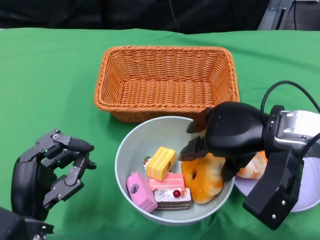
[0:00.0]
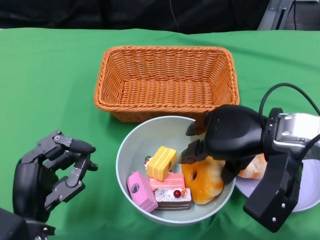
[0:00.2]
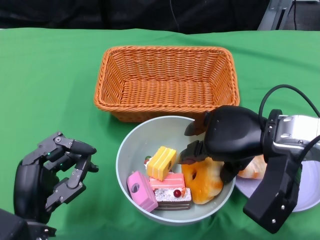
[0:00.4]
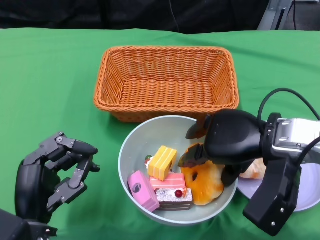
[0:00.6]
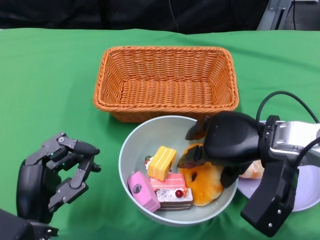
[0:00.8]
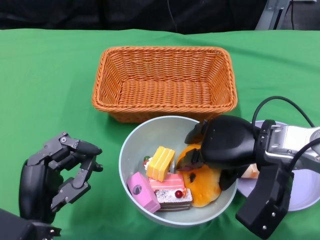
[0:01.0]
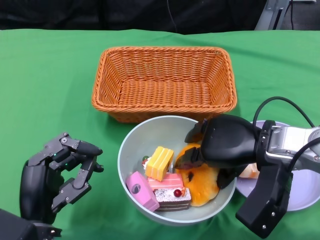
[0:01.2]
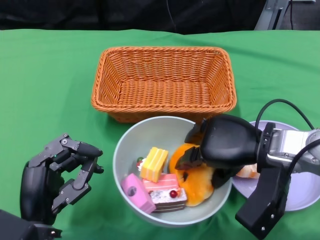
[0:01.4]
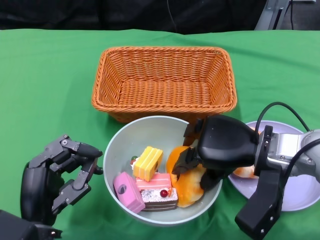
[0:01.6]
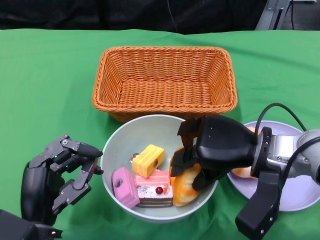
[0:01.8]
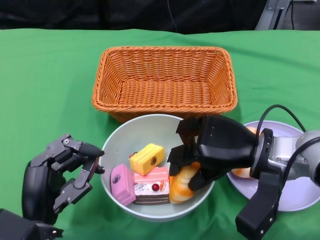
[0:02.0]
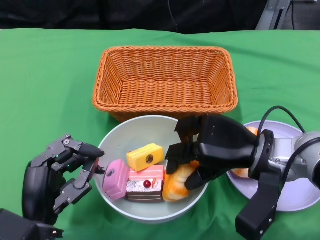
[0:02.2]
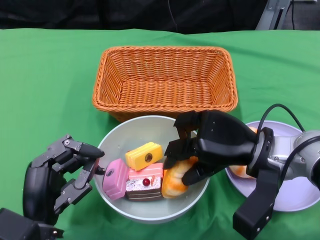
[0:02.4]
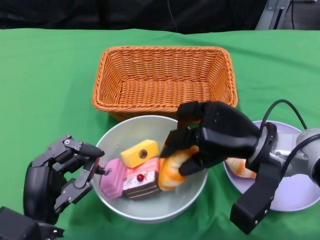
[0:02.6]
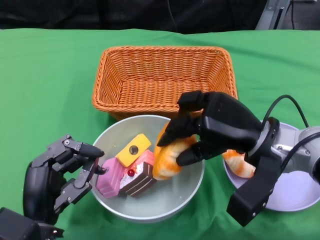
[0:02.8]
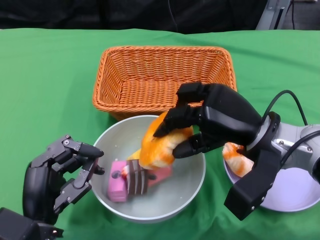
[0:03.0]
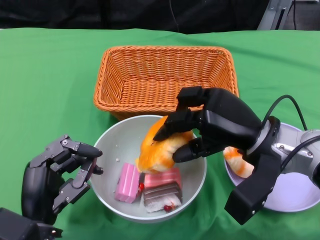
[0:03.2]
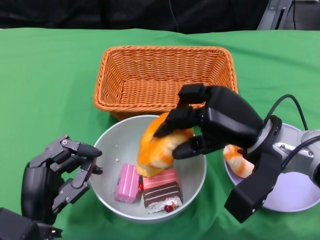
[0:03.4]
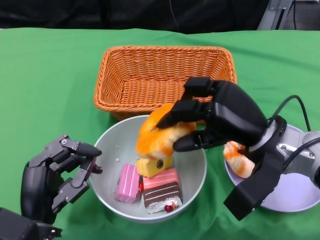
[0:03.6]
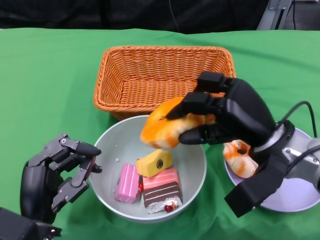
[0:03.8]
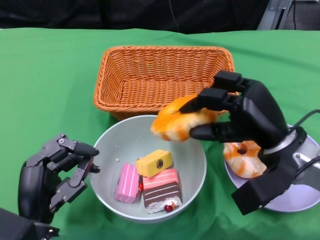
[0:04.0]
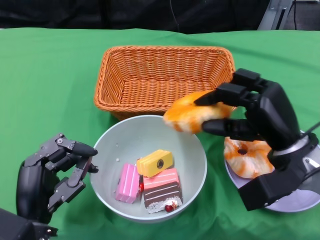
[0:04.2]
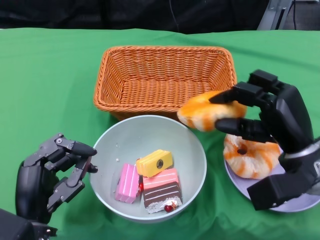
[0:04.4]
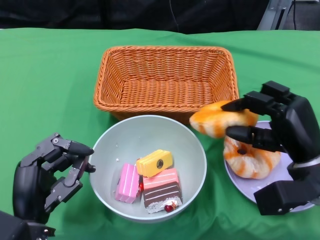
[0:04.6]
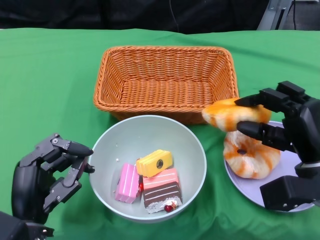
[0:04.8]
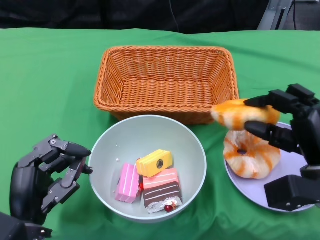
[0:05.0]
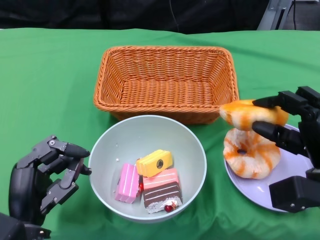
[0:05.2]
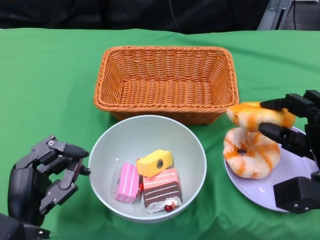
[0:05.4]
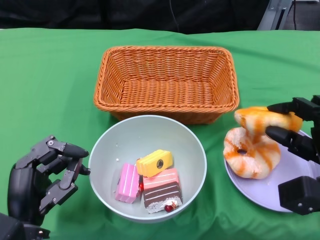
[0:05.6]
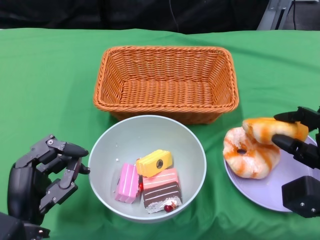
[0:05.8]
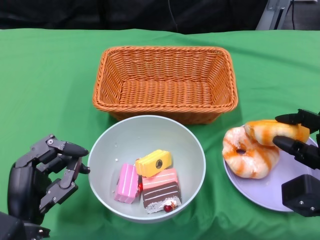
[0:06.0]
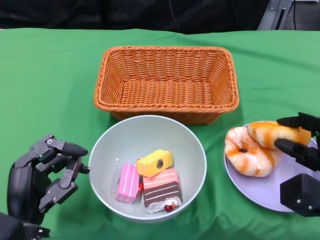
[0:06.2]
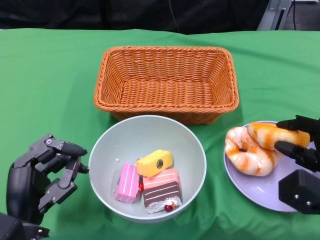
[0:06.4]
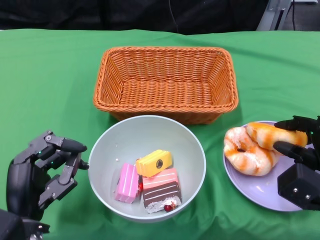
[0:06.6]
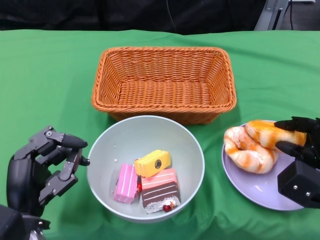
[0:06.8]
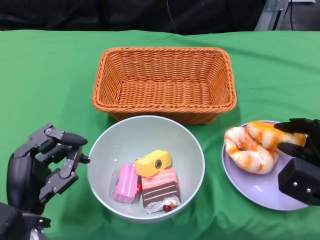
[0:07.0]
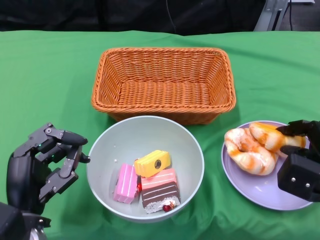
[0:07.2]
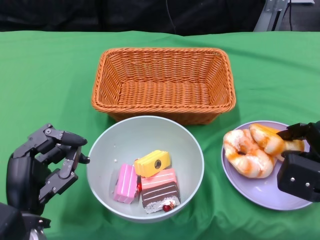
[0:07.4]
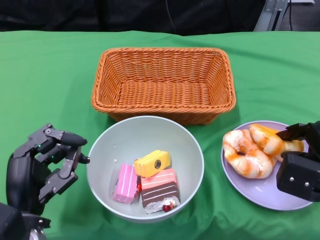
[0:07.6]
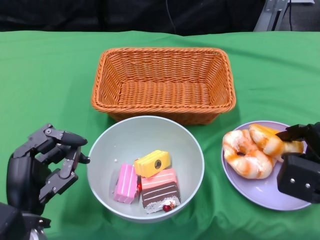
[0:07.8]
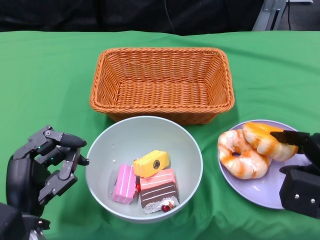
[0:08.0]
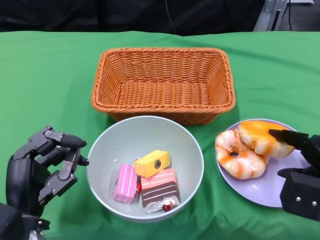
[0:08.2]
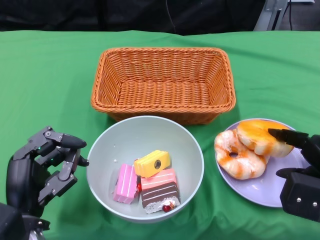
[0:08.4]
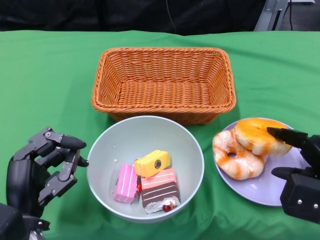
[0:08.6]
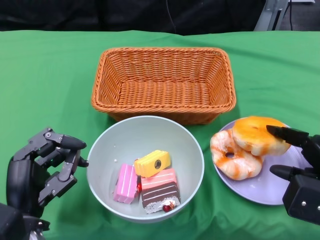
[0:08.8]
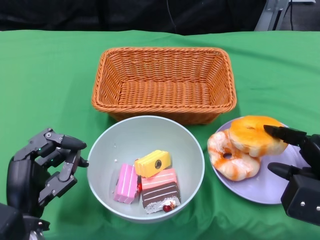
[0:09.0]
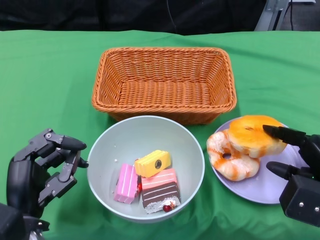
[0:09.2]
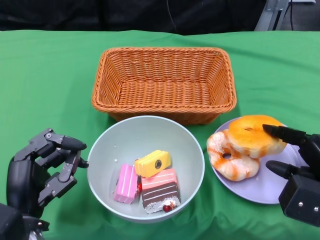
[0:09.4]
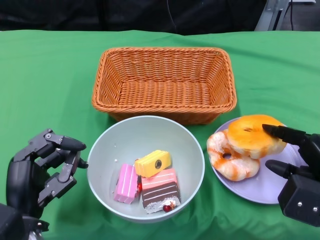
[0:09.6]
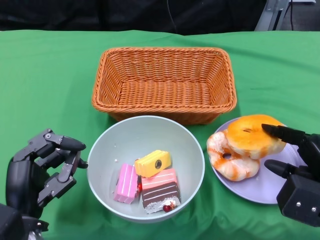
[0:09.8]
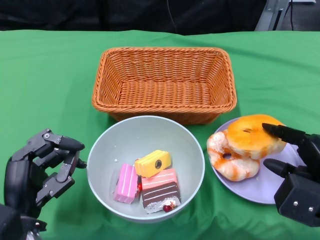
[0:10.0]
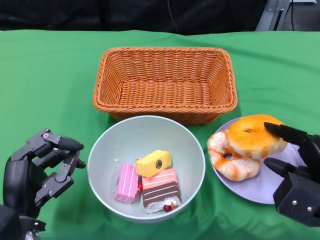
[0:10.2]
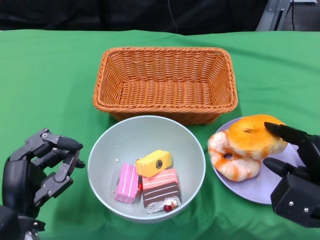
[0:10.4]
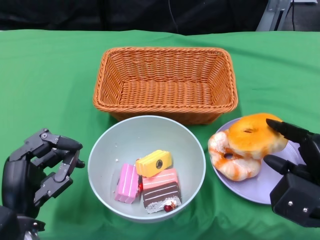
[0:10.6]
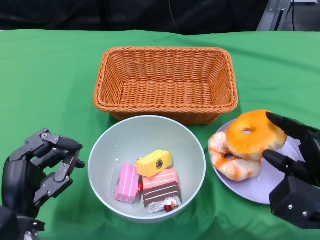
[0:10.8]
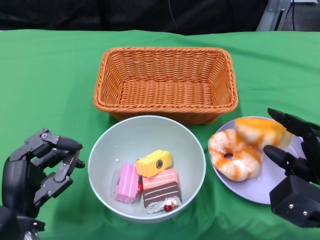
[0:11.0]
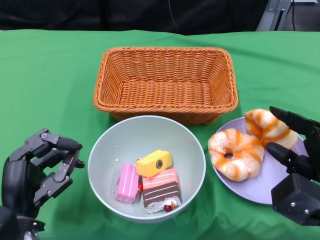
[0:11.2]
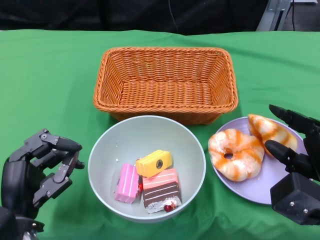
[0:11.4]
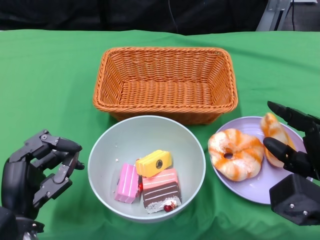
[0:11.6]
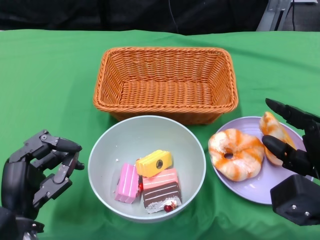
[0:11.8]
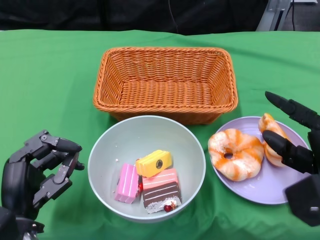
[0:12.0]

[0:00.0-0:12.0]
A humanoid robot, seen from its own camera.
0:03.0 to 0:04.4: The right hand travels to the right by roughly 5 cm.
0:04.4 to 0:06.0: The right hand shifts about 5 cm to the right.
0:07.6 to 0:10.4: The hands make only small movements.

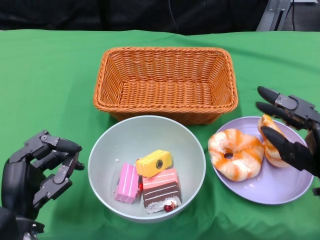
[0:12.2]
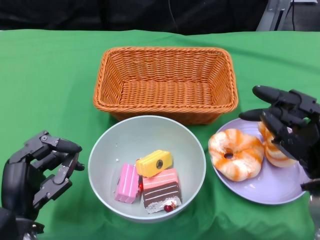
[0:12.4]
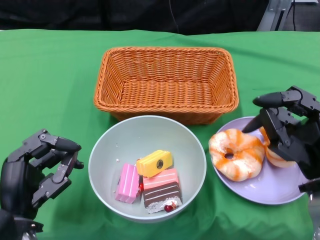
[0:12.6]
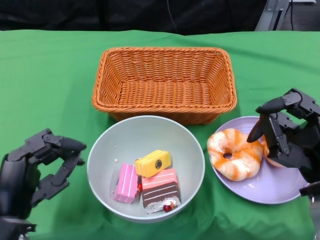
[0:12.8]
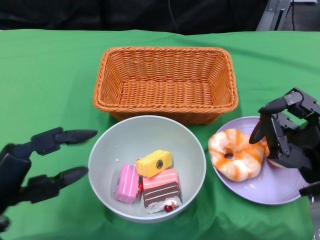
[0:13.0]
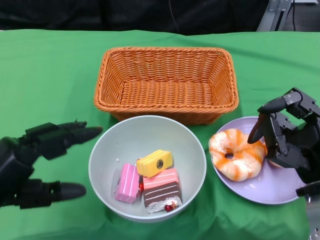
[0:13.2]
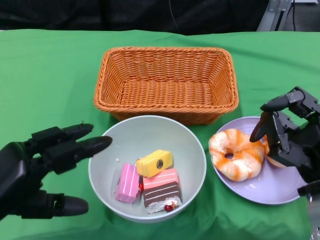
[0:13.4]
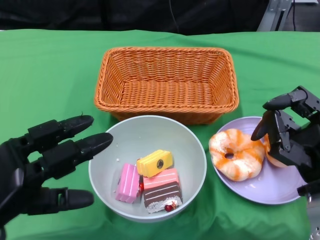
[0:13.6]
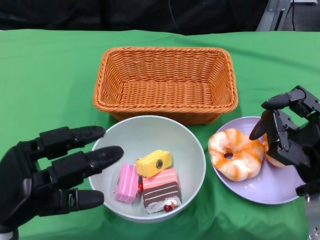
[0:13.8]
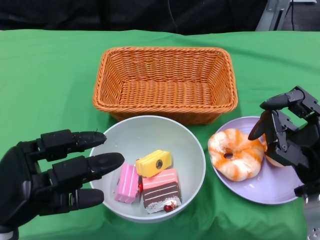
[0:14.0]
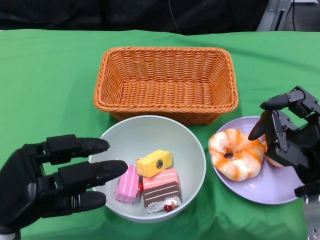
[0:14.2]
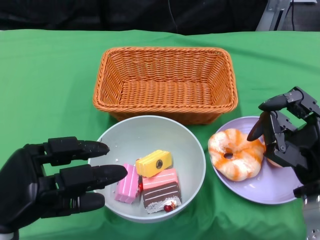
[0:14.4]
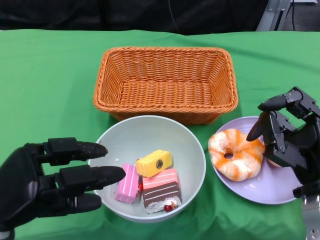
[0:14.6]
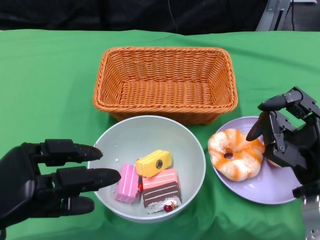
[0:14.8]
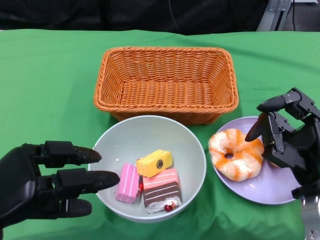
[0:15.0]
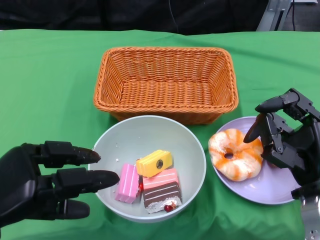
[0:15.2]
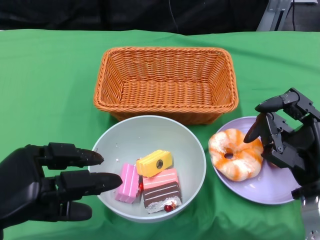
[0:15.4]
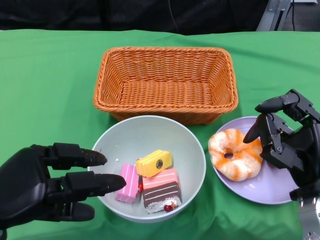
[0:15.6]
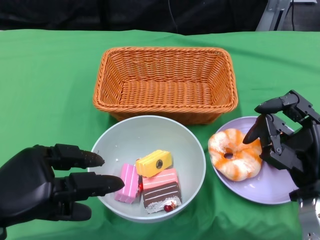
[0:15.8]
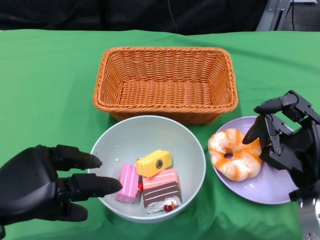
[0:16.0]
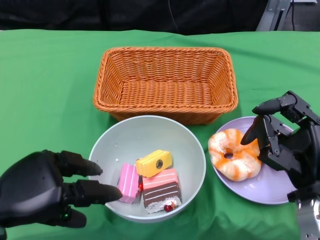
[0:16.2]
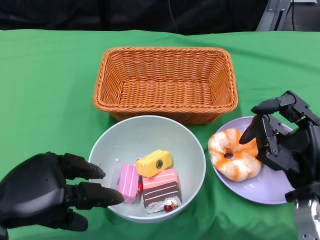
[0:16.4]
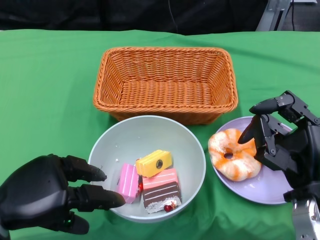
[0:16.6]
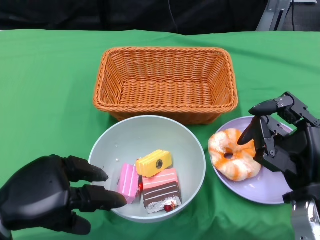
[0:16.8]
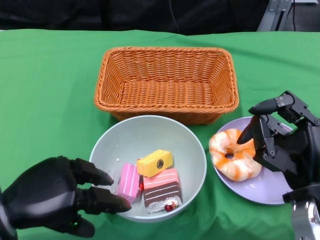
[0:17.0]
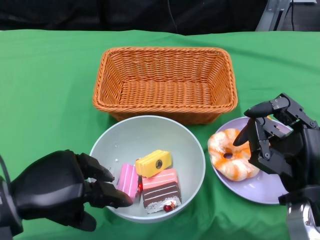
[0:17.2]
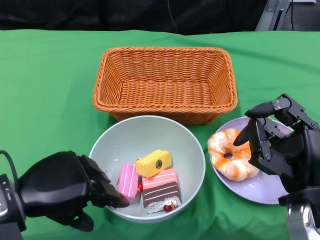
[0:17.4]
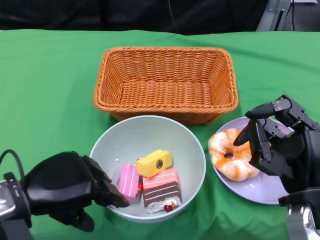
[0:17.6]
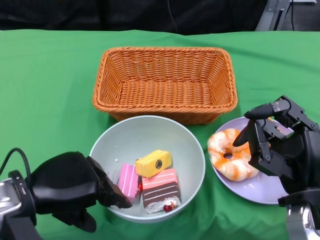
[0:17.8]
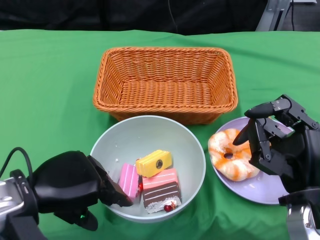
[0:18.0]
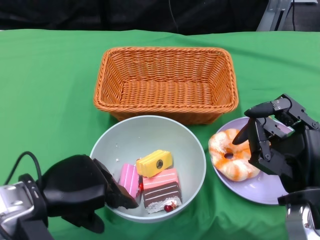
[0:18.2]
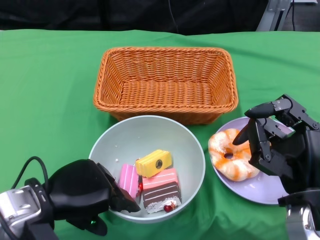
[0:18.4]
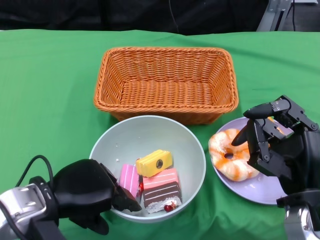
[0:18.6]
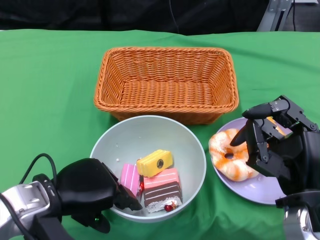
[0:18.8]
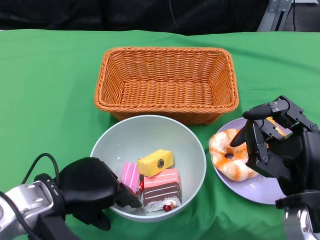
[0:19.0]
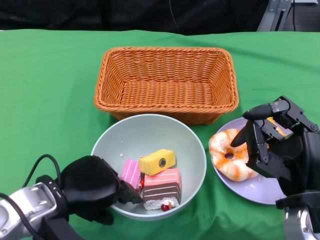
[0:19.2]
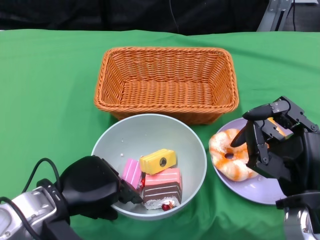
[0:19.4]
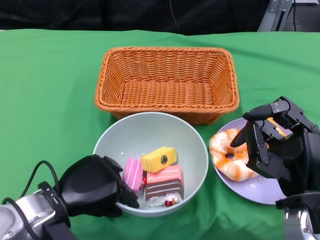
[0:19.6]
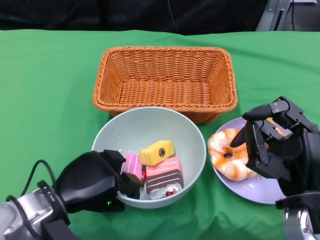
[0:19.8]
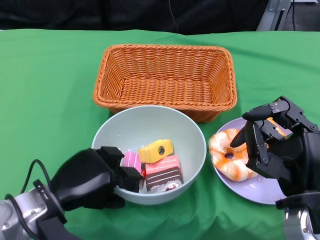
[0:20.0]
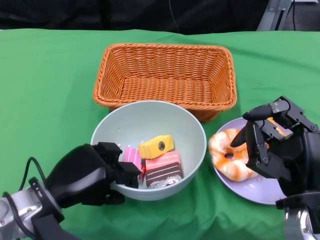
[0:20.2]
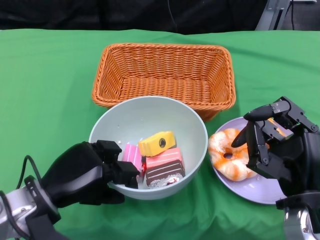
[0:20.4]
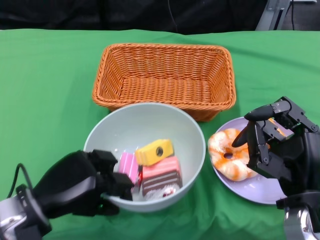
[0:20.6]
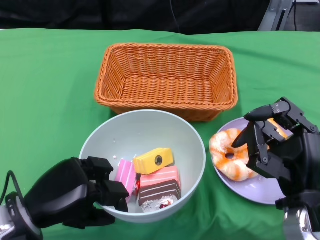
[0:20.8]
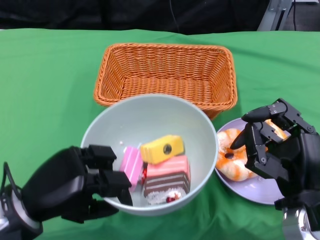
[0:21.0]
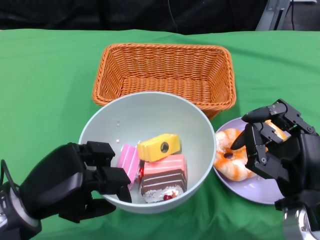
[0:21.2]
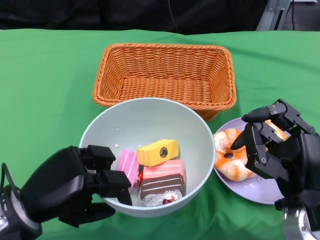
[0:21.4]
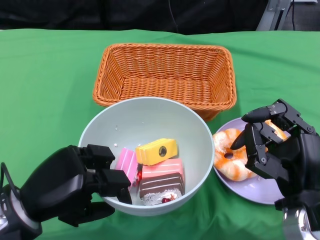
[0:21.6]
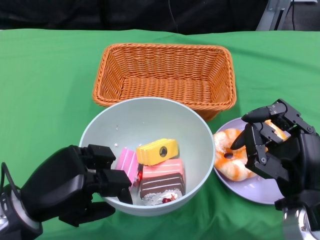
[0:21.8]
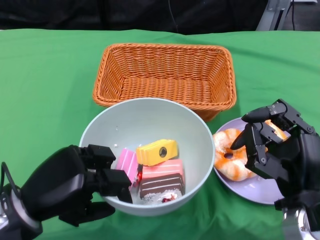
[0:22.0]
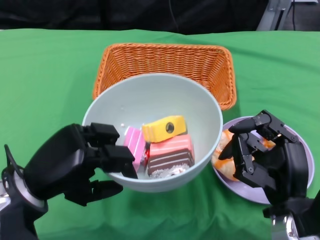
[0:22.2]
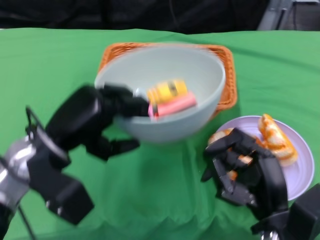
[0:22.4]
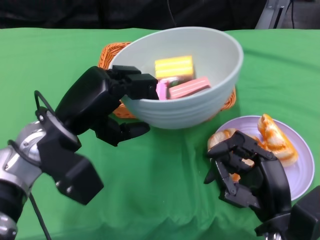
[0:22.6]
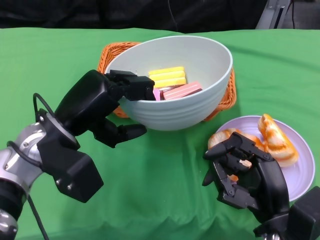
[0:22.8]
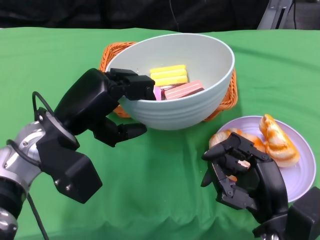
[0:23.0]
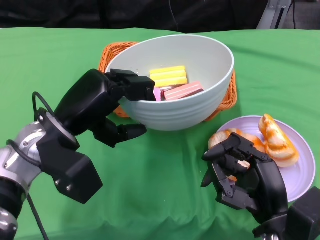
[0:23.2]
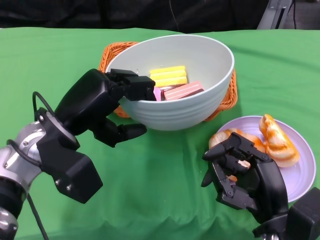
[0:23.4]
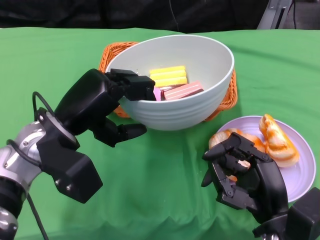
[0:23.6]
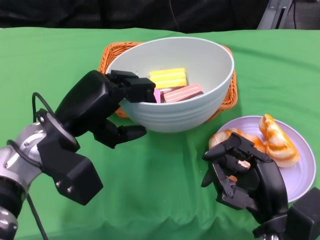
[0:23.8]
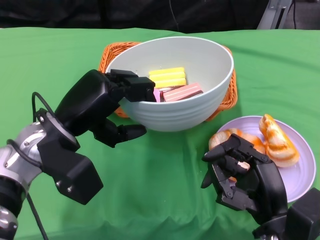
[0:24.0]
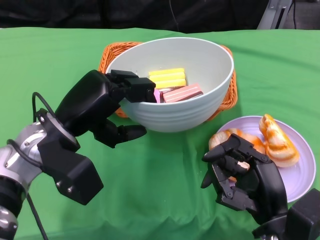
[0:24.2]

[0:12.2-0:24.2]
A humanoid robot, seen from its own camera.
Step, 0:12.6 to 0:19.8: Grasp the bowl with the left gripper.
0:12.2 to 0:13.8: The left hand shifts approximately 5 cm upward.
0:13.8 to 0:15.2: The hands stay close to where they were, moving slightly.
0:15.2 to 0:16.6: The hands stay close to where they were, moving slightly.
0:16.6 to 0:18.2: The hands make only small movements.
0:18.2 to 0:19.8: The left hand shifts approximately 5 cm downward.
0:19.8 to 0:21.2: The left hand ends up about 5 cm from where it was.
0:21.2 to 0:22.6: The left hand heads forward, upward and to the right, covering approximately 10 cm.
0:22.6 to 0:24.2: The two hands keep their place.
